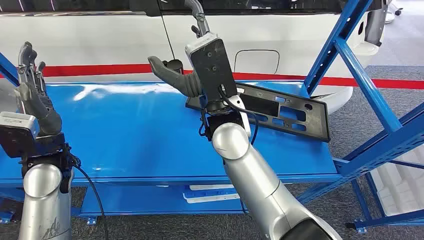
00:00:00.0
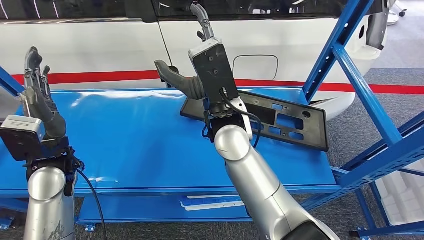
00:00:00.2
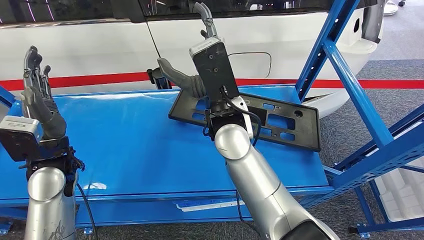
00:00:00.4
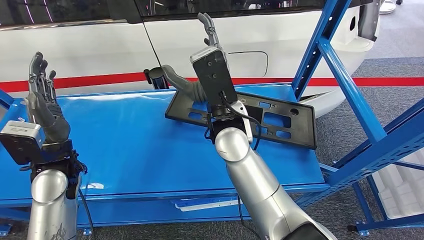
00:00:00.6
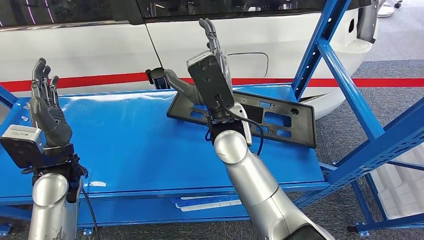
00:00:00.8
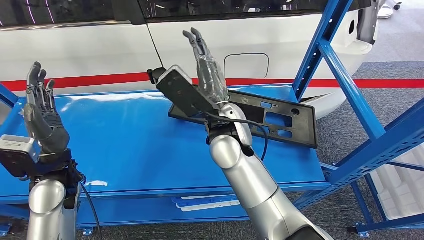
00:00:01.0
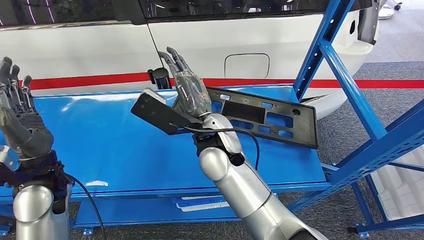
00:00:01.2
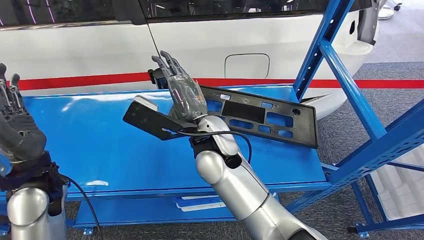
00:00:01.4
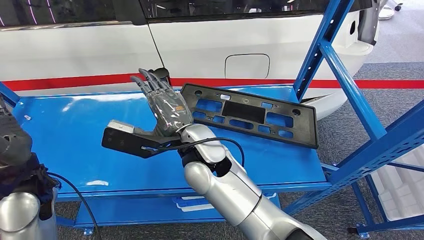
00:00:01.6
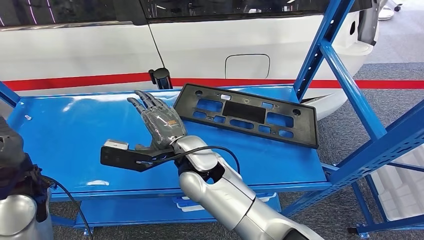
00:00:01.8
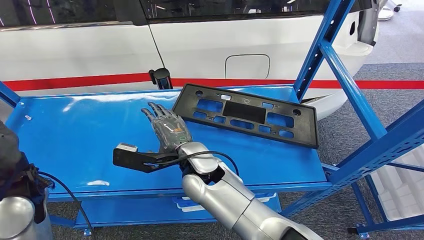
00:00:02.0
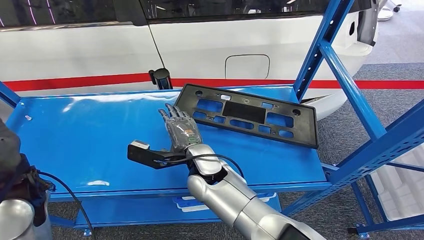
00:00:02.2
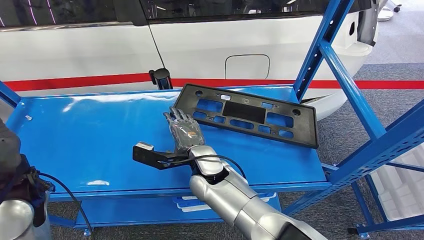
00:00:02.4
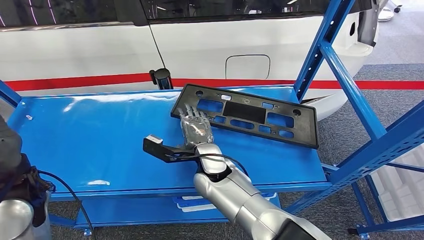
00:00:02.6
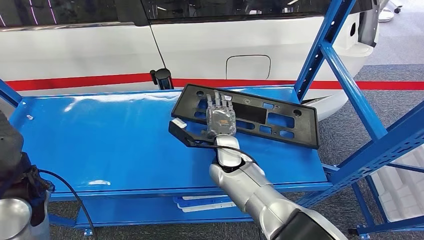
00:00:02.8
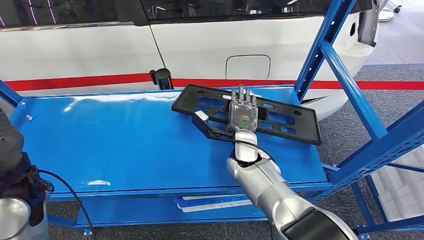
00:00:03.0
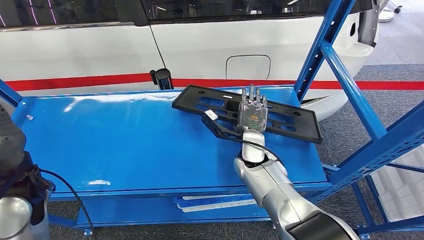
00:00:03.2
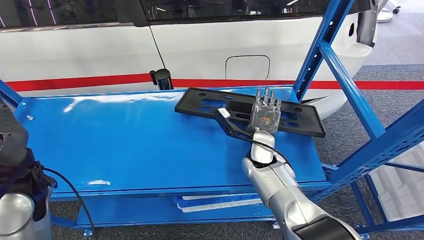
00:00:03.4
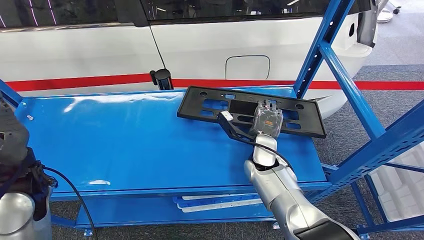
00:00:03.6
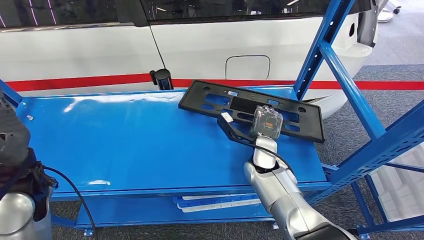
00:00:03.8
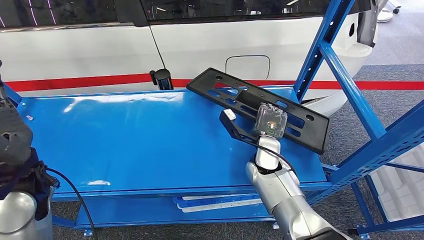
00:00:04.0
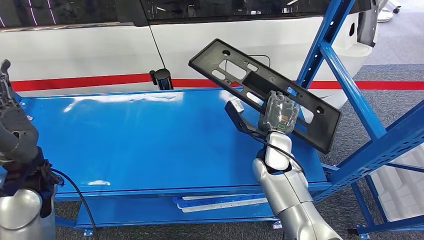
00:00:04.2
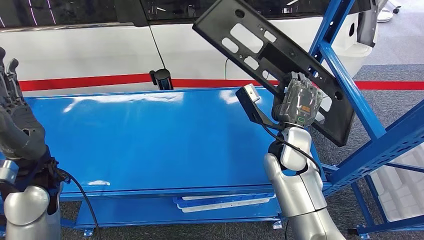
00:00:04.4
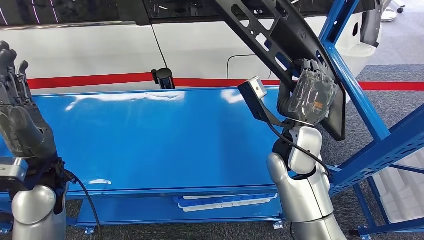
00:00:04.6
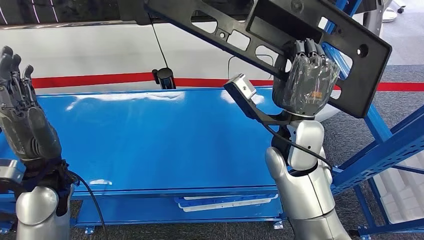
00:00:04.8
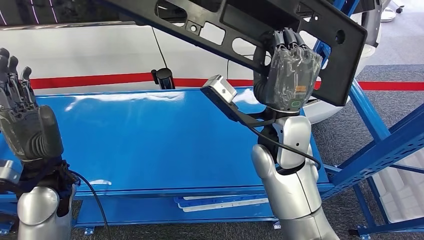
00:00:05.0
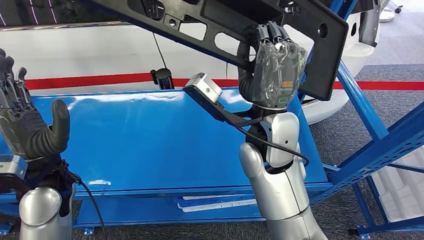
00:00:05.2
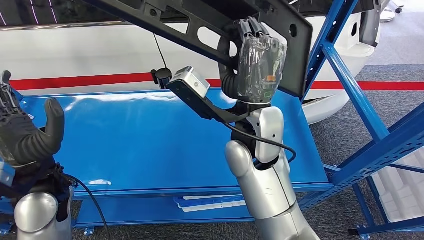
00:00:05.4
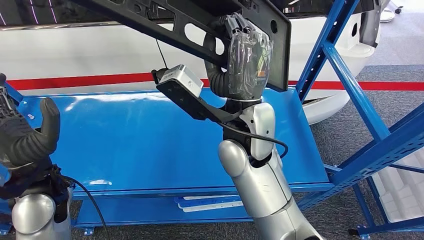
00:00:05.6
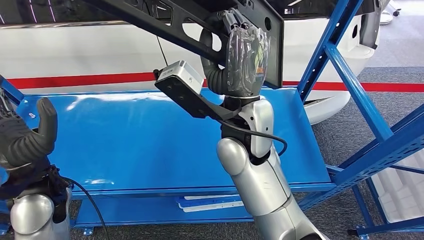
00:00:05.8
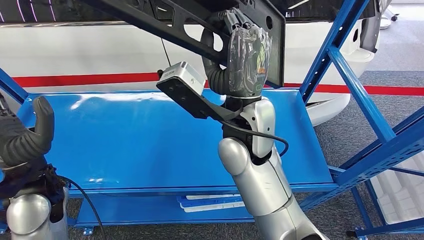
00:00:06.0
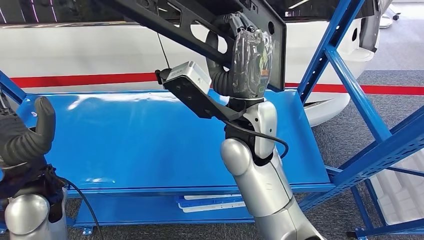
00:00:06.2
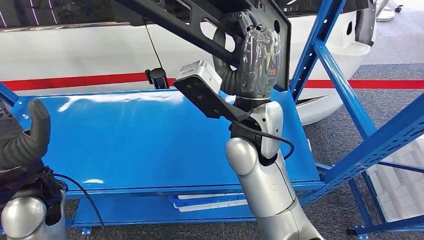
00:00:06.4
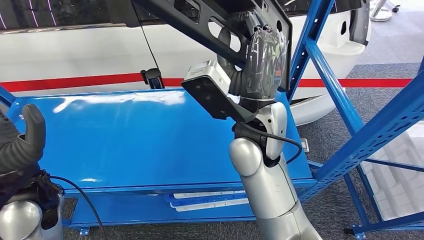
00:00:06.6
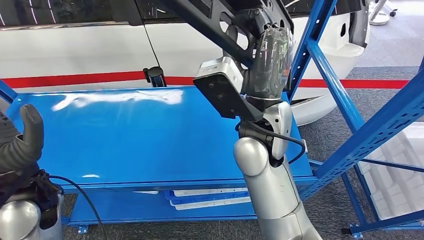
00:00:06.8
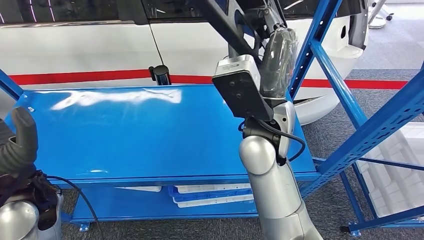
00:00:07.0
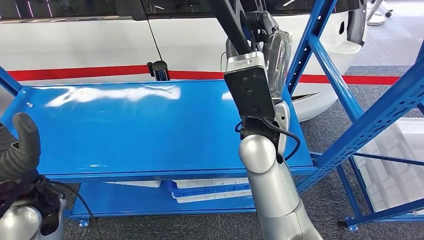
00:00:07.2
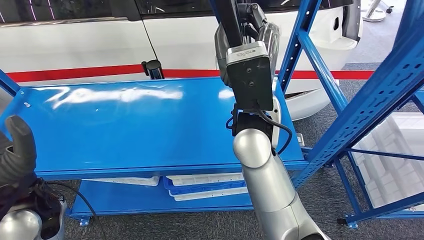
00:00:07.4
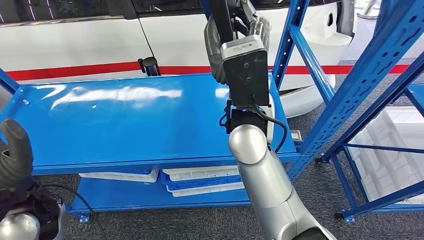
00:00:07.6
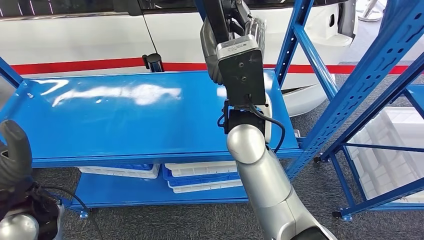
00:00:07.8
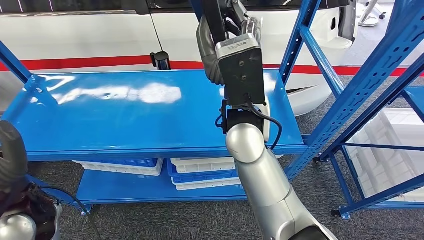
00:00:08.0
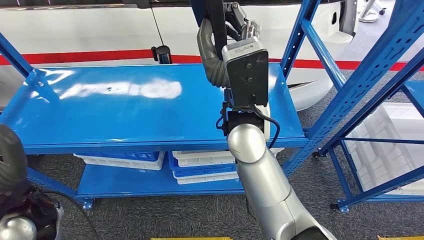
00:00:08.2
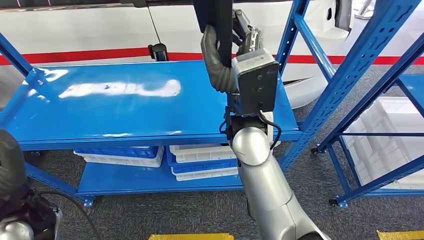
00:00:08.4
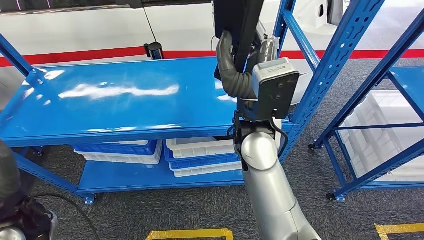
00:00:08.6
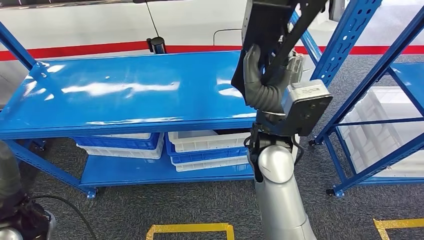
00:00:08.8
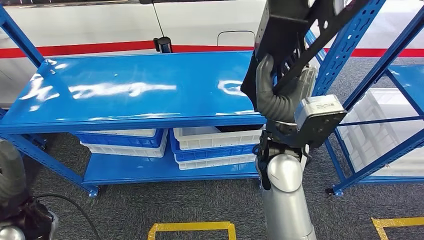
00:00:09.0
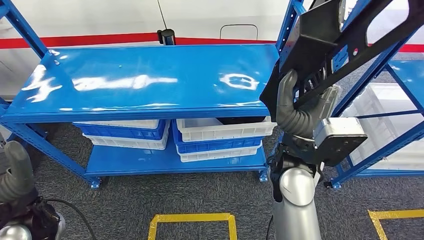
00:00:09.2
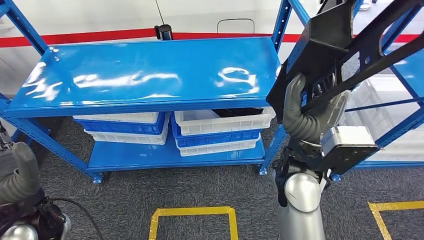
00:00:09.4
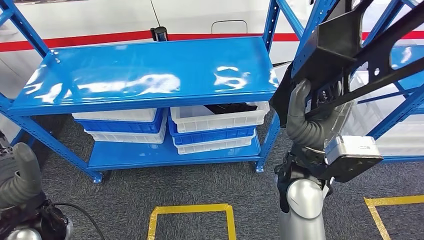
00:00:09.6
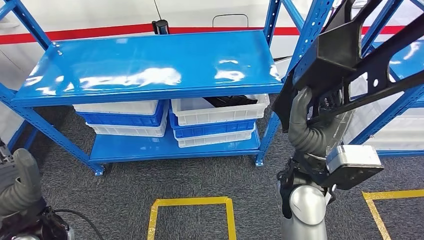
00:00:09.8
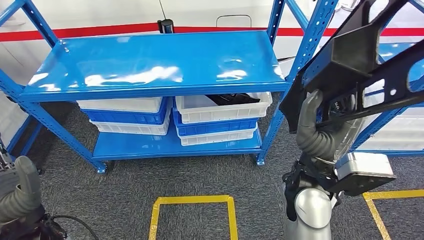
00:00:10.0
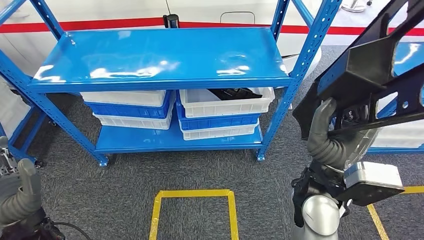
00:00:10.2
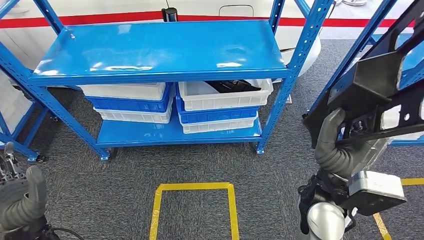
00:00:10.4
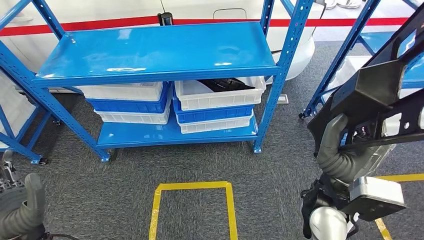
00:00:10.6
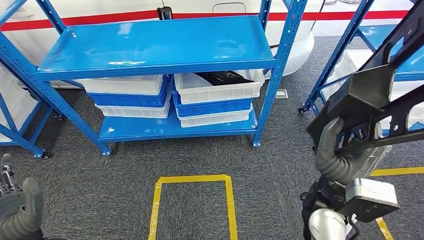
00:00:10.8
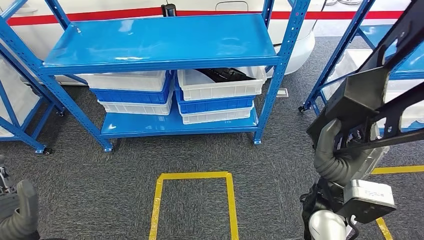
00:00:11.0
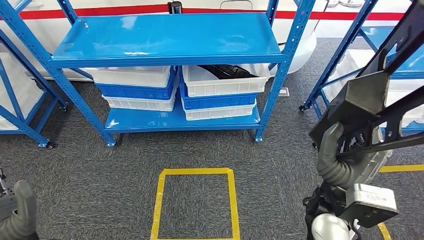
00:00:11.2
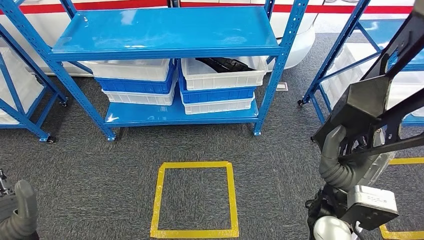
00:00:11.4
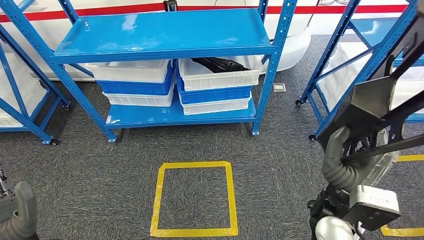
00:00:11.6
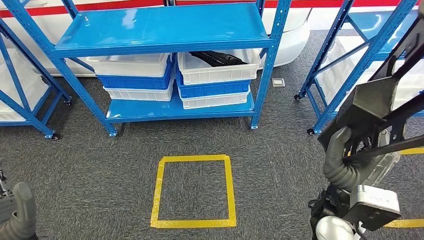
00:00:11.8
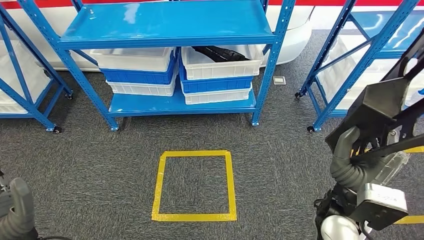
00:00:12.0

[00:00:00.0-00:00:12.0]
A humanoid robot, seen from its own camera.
Step, 00:00:00.0 to 00:00:06.4: Pick up the large material from the shelf.

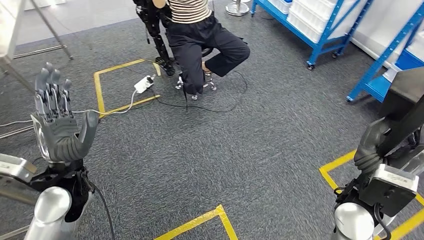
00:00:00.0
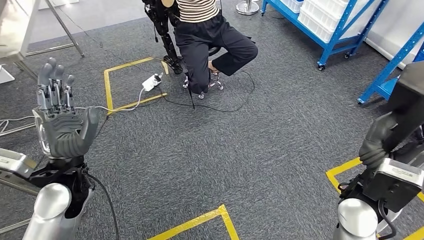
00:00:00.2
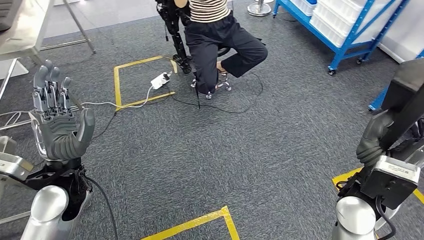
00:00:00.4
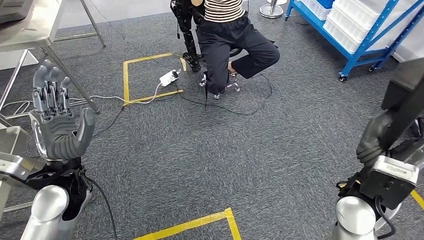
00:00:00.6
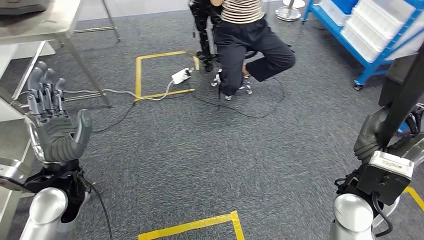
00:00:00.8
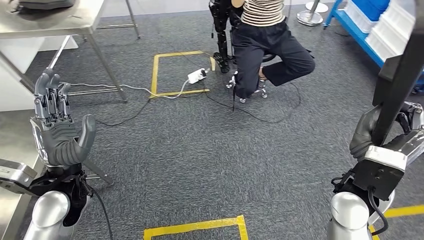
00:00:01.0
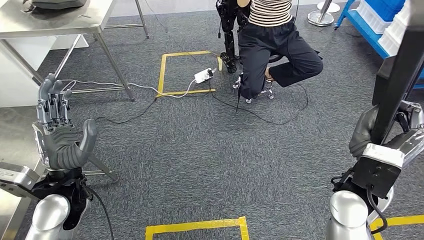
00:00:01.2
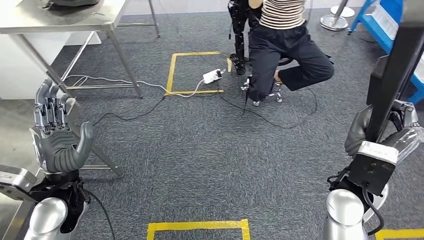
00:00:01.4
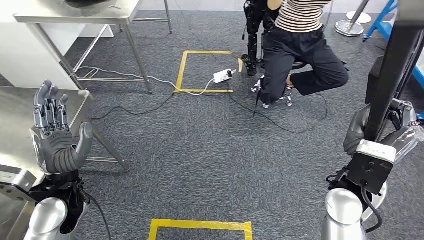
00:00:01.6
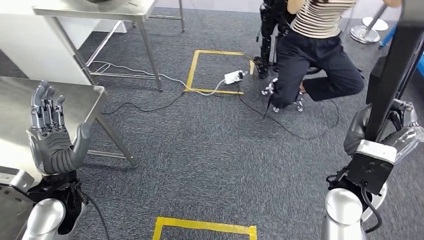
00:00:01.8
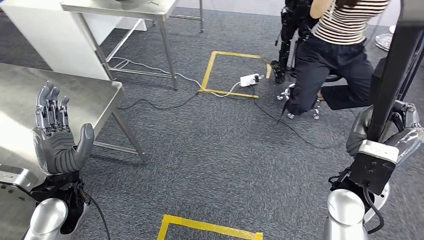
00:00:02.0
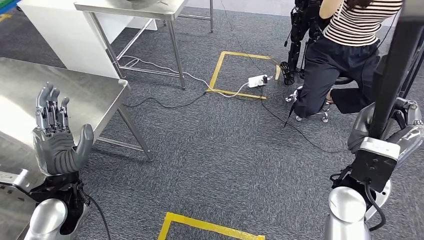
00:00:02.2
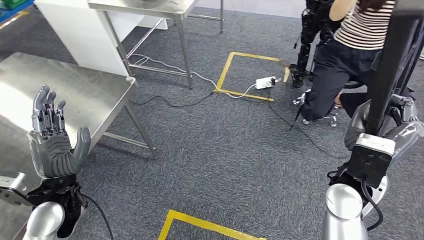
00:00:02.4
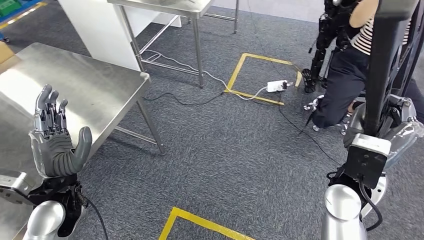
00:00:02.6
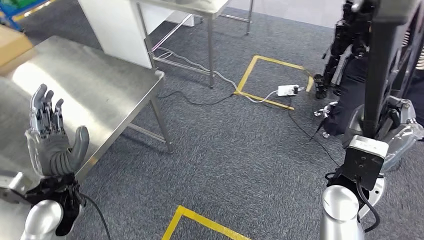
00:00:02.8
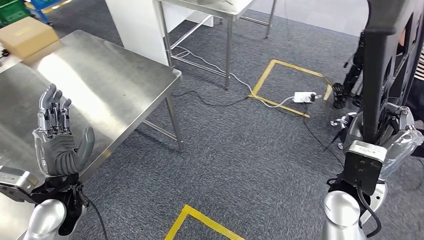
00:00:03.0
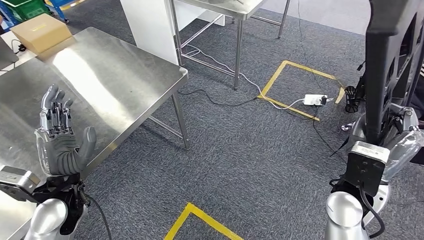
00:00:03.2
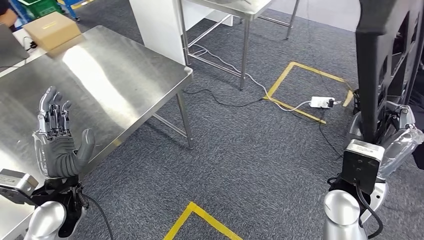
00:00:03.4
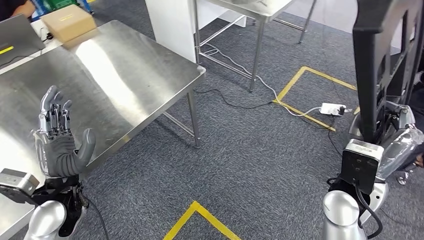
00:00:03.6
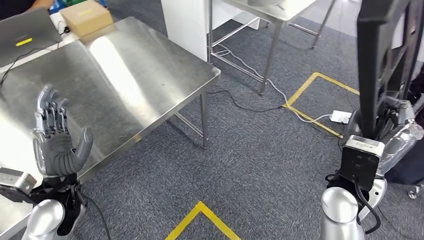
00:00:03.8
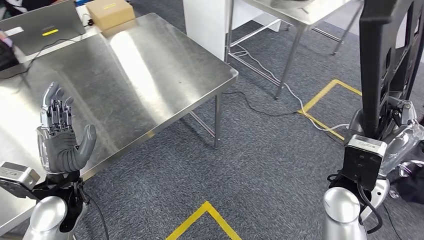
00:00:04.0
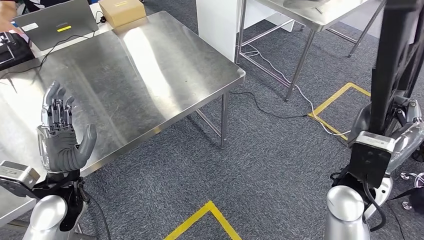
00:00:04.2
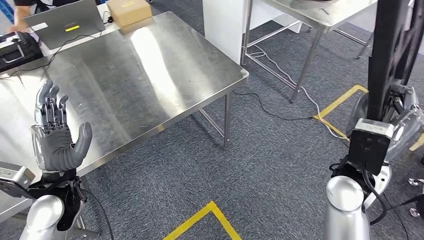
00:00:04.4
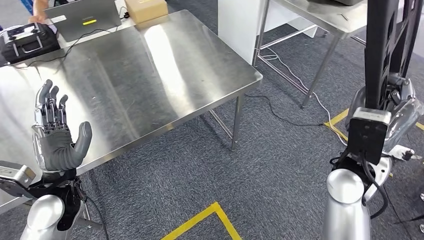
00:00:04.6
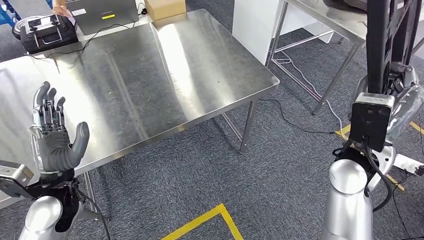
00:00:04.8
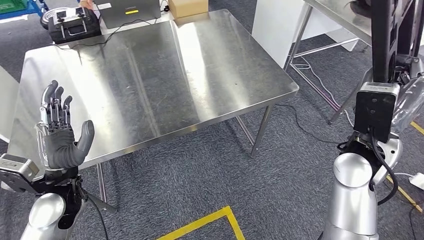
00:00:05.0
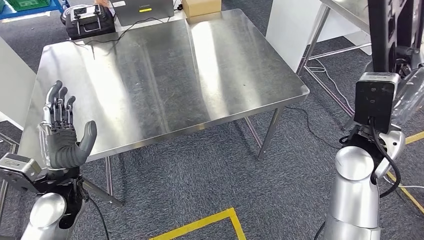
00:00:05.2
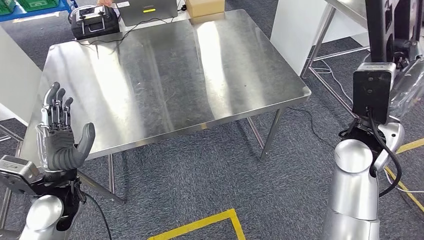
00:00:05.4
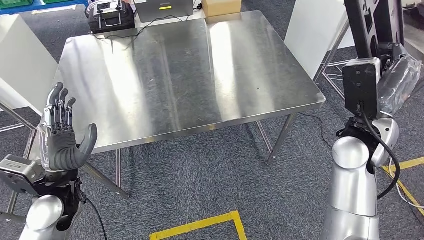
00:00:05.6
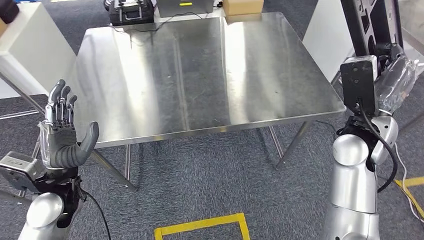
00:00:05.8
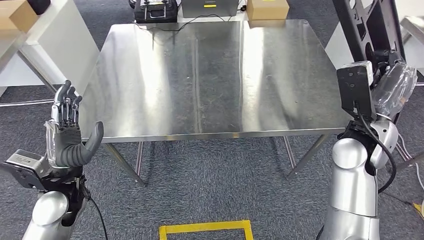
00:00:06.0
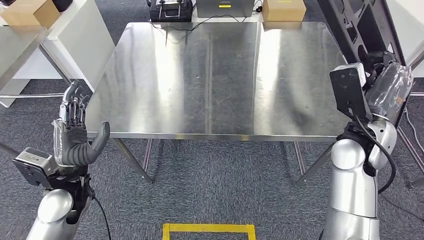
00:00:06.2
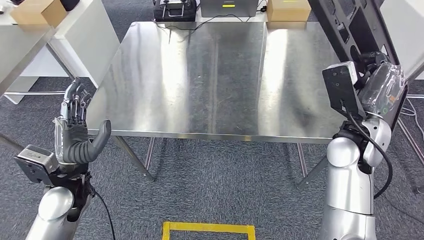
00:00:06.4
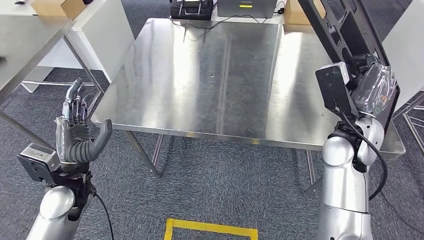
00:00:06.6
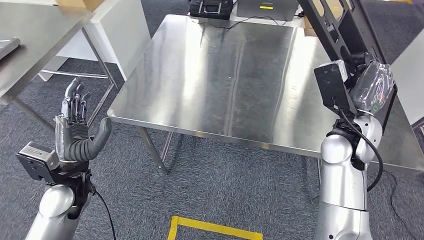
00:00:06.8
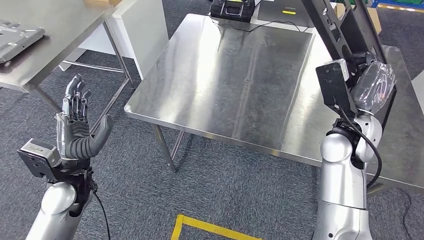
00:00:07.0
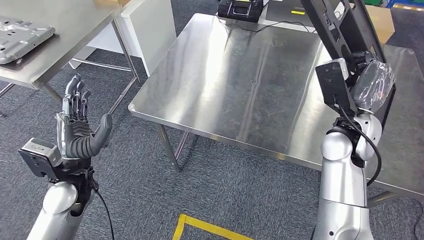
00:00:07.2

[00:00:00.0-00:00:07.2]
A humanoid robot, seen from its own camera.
Step, 00:00:00.0 to 00:00:04.8: Move the large material to the front of the workbench.
